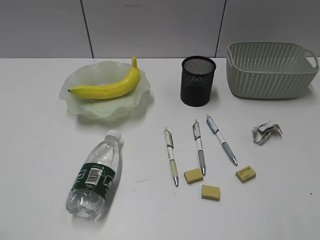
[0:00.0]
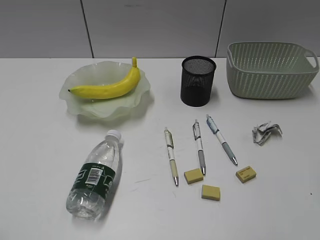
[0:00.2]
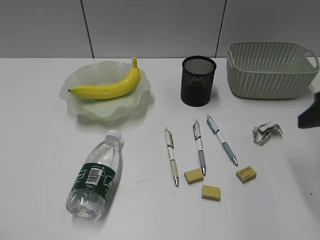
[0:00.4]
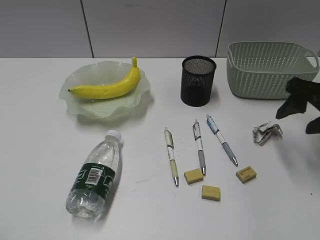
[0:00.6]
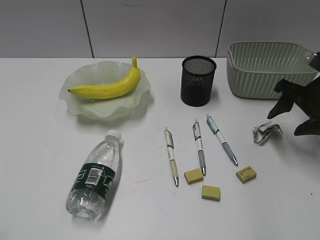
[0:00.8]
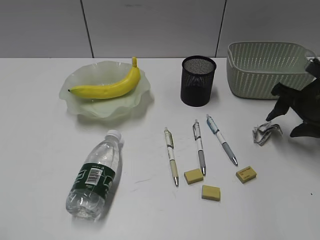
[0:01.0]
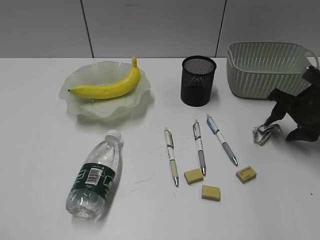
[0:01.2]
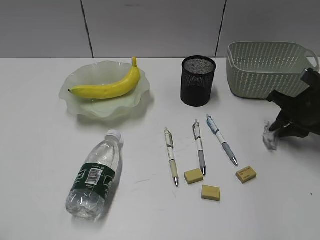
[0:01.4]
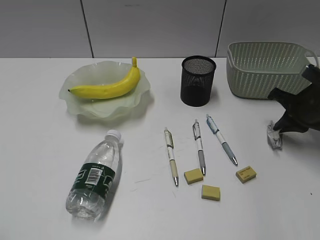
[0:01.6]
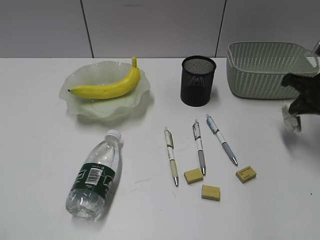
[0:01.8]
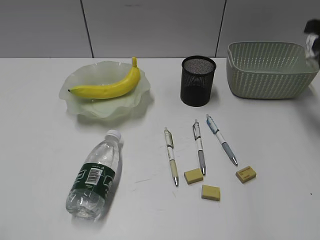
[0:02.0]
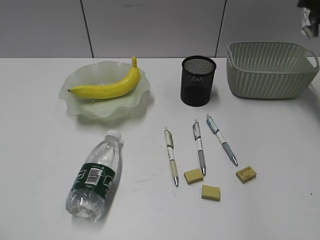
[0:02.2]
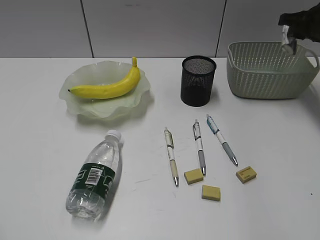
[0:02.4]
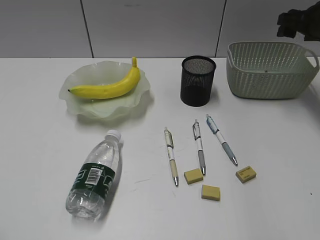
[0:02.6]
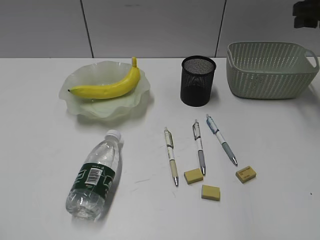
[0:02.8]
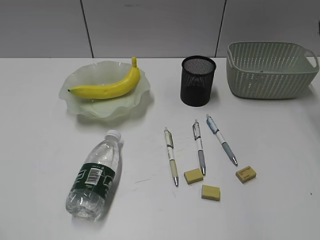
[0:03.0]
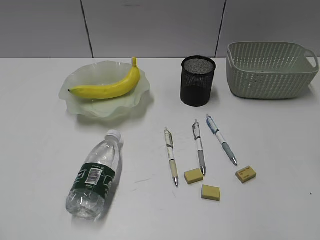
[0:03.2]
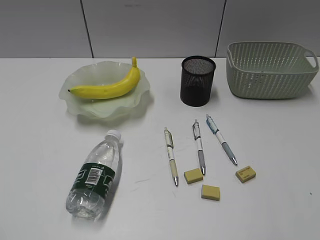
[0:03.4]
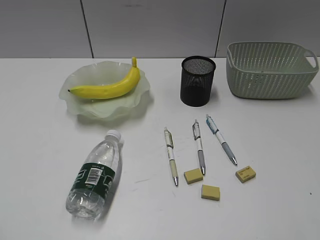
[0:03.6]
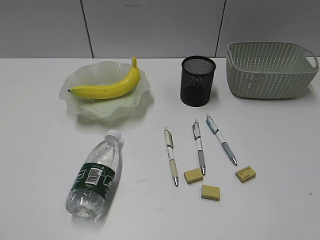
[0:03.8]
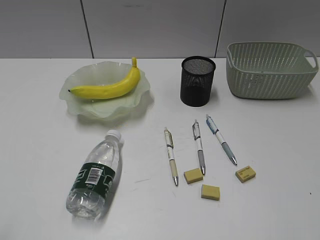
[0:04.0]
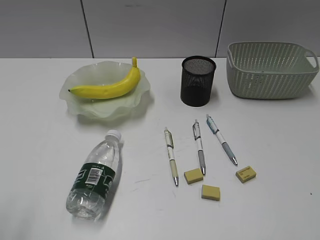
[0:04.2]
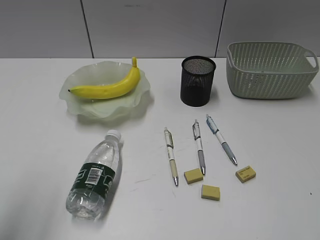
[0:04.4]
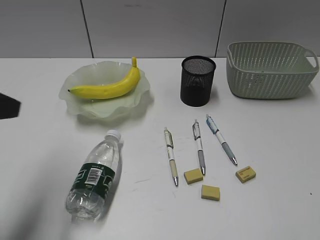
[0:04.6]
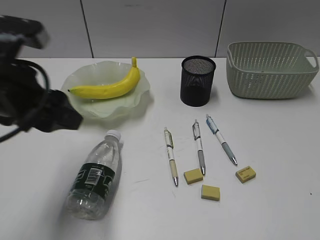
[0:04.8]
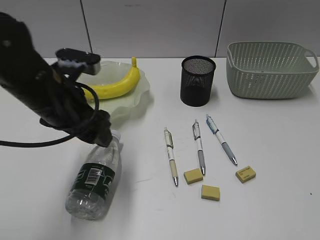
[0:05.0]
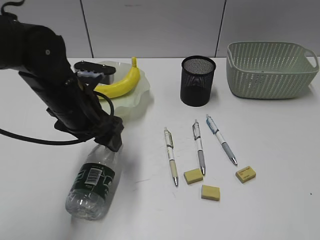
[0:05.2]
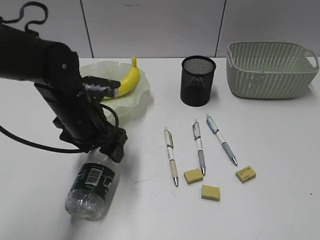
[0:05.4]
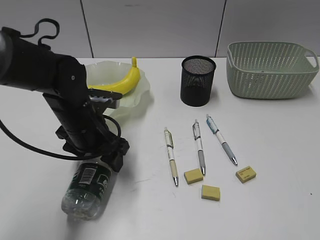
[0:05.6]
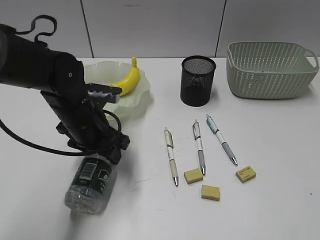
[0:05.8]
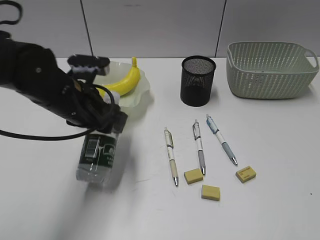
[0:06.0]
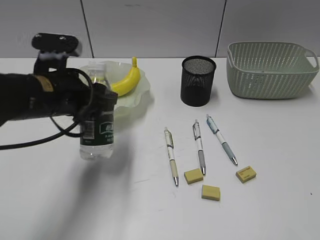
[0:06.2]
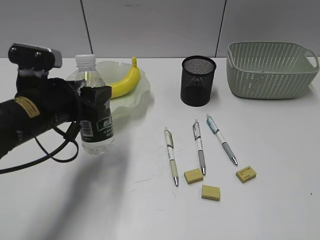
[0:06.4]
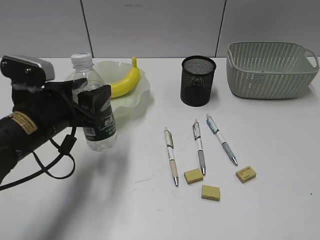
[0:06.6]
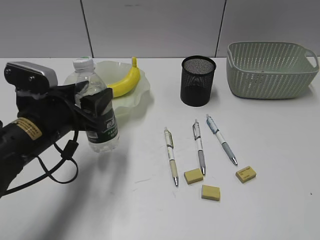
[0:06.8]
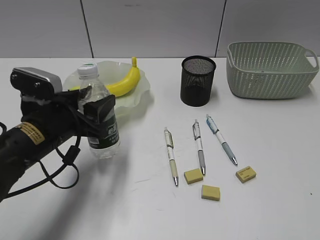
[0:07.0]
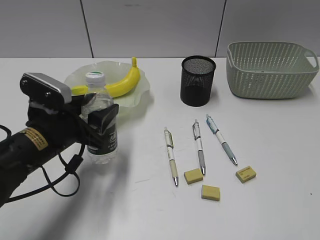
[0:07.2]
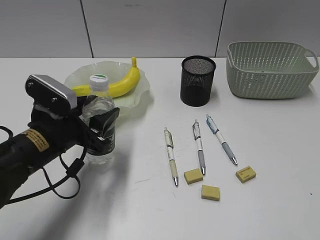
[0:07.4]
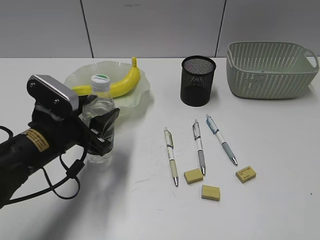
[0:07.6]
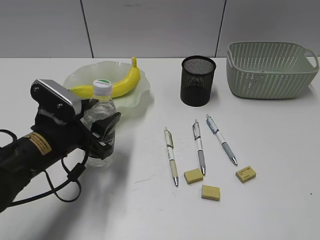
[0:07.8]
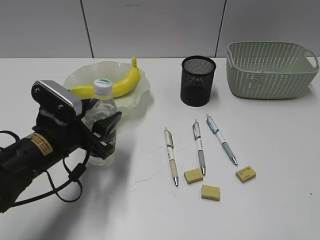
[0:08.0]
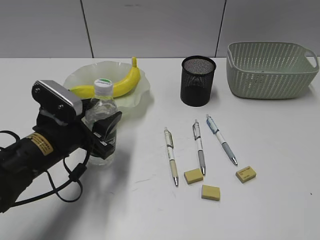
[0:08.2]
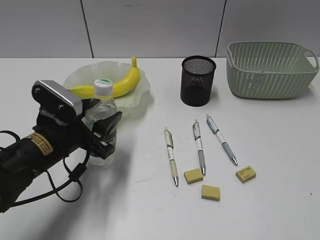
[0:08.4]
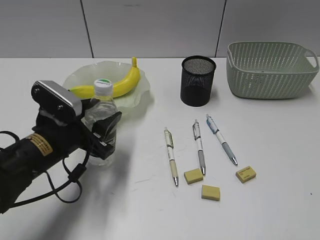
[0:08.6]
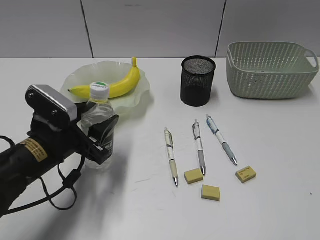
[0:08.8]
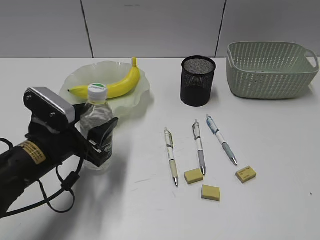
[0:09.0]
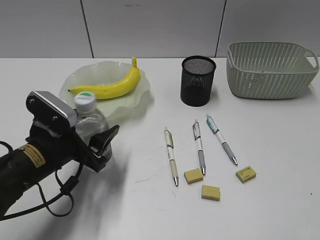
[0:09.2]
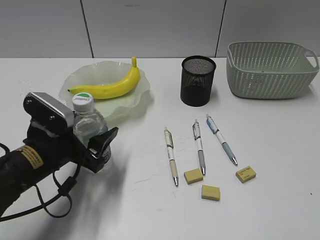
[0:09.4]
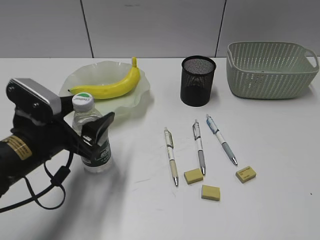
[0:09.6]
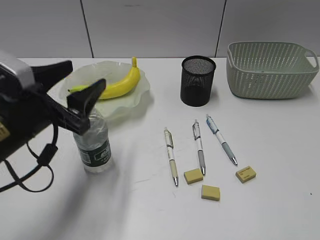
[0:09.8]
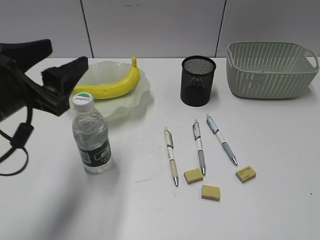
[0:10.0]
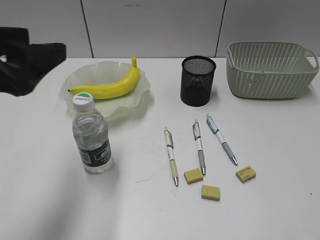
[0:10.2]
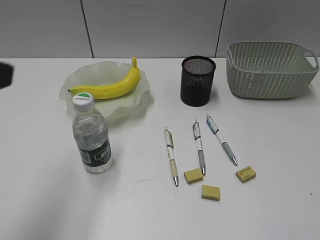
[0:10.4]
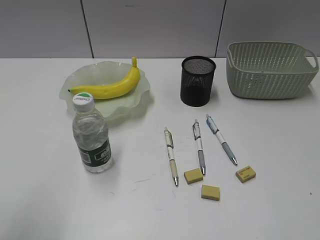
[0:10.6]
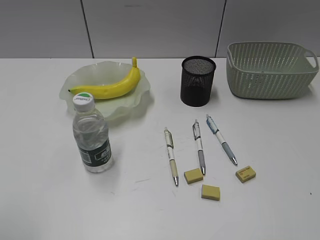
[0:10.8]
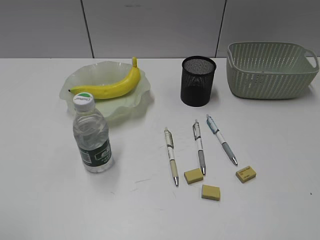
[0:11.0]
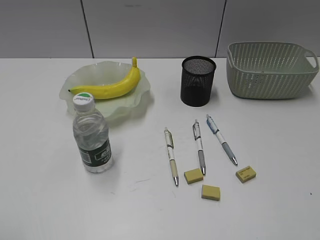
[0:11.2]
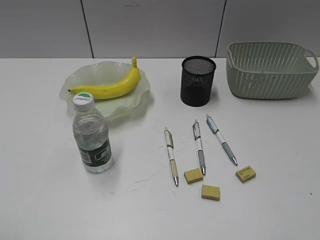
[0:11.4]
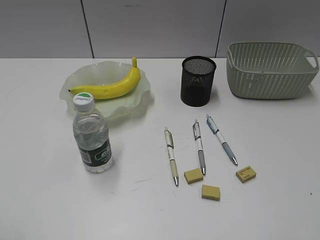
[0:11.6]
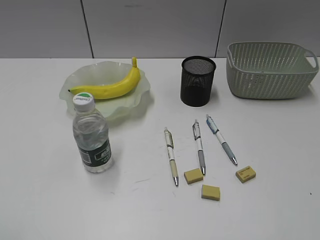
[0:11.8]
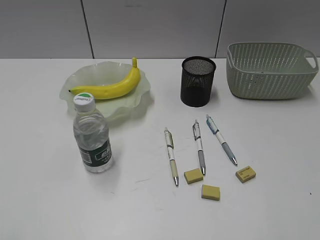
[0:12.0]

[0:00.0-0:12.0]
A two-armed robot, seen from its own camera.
Step, 1.6 to 2.6 s: Place the waste paper in the basket with right gripper.
Step, 2.8 to 5.6 s: Grasp the bottle with left gripper.
Step, 5.8 to 9.6 s: Stand the bottle with left gripper.
0.0 to 1.6 s: The right gripper is displaced forward and downward by about 35 cm, and opens, then closes again.
1.6 to 3.0 s: The right gripper moves up and down over approximately 15 cm, changing direction 2 times, and opens.
3.0 to 4.4 s: The left gripper goes some 10 cm forward.
4.4 to 6.0 s: The left gripper travels forward, to the right and downward by roughly 30 cm.
6.0 to 7.6 s: The left gripper goes roughly 5 cm backward.
7.6 to 9.0 s: The grippers move only a little.
9.0 to 10.4 s: The left gripper shifts about 25 cm upward and backward.
10.4 to 12.0 s: The left gripper goes about 20 cm backward and to the left.

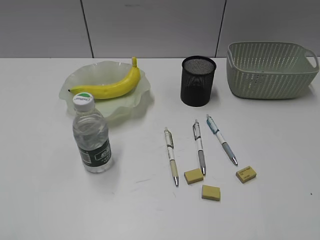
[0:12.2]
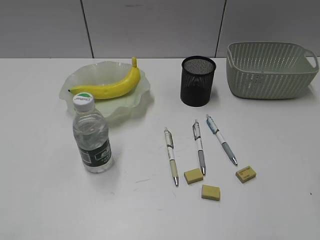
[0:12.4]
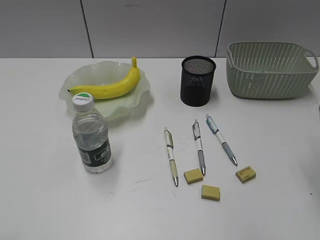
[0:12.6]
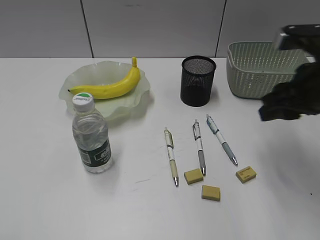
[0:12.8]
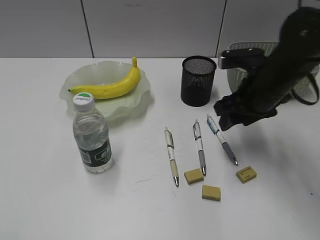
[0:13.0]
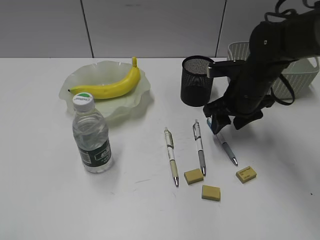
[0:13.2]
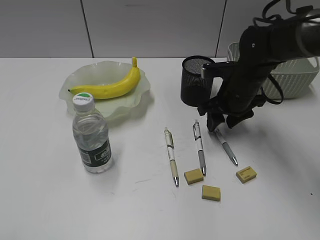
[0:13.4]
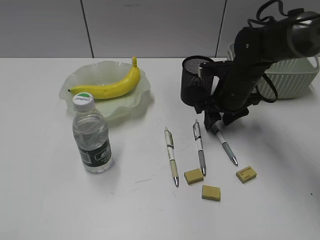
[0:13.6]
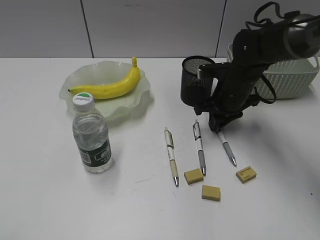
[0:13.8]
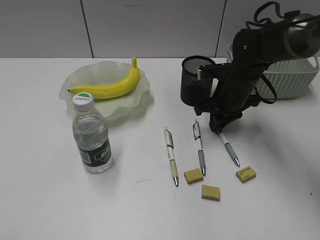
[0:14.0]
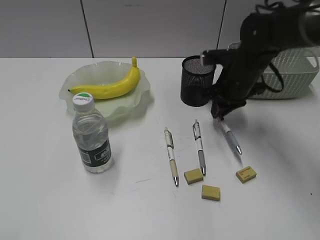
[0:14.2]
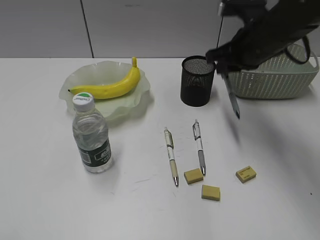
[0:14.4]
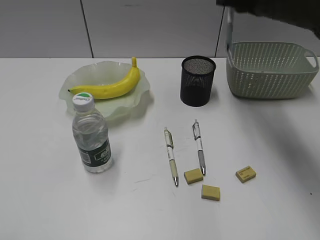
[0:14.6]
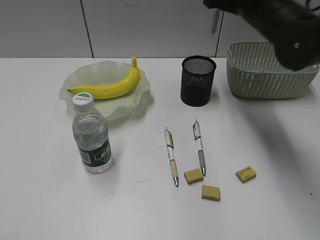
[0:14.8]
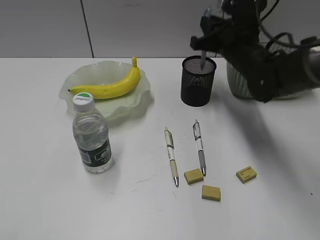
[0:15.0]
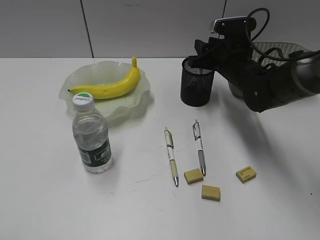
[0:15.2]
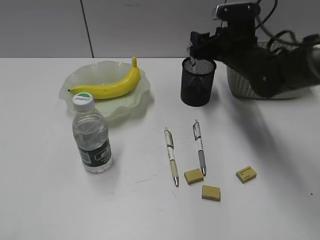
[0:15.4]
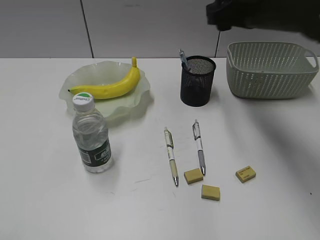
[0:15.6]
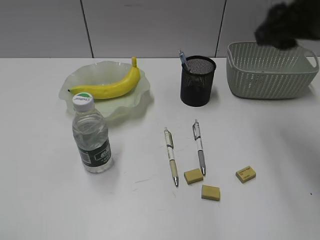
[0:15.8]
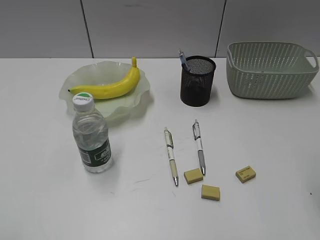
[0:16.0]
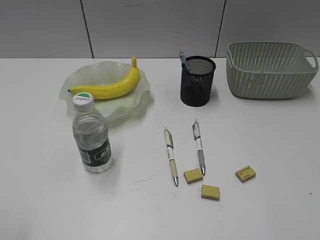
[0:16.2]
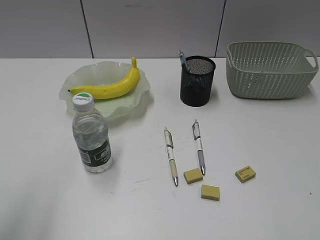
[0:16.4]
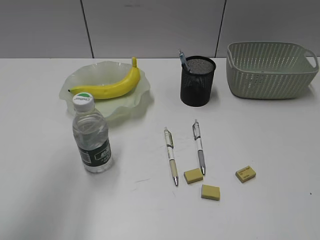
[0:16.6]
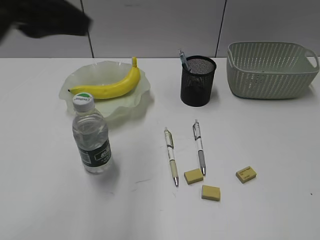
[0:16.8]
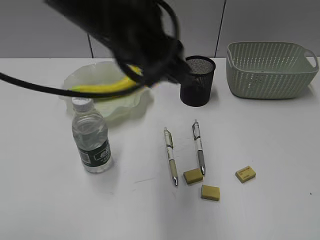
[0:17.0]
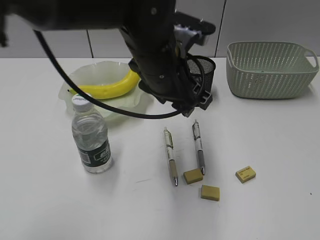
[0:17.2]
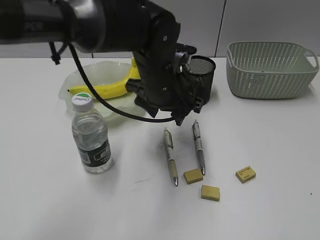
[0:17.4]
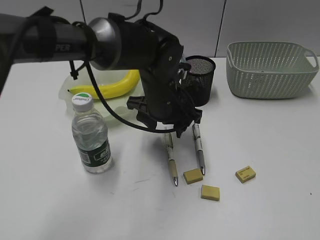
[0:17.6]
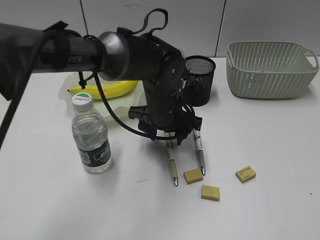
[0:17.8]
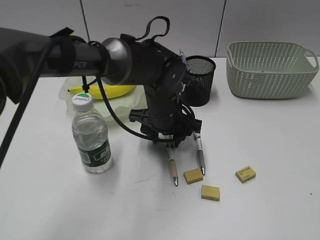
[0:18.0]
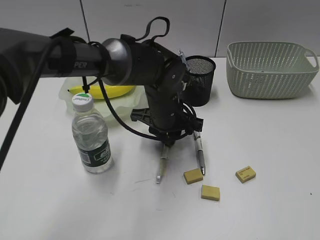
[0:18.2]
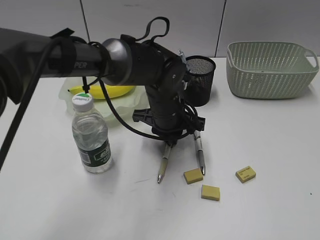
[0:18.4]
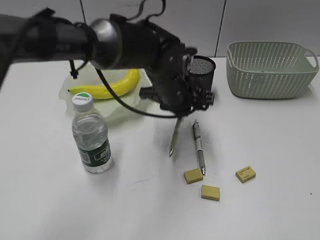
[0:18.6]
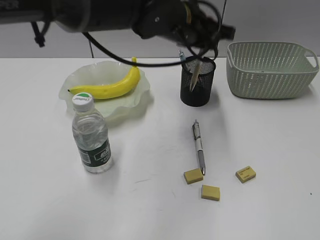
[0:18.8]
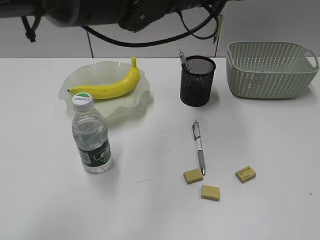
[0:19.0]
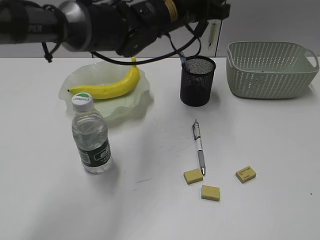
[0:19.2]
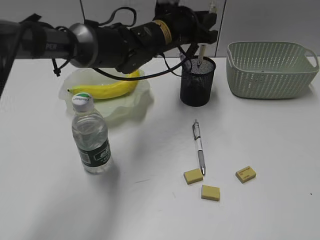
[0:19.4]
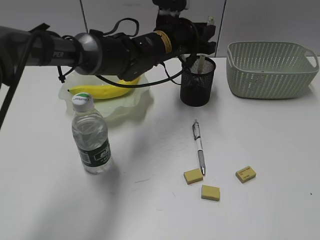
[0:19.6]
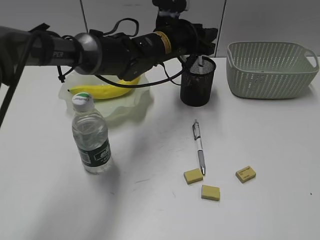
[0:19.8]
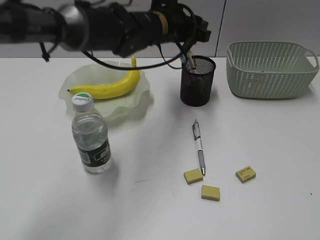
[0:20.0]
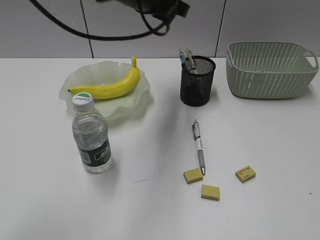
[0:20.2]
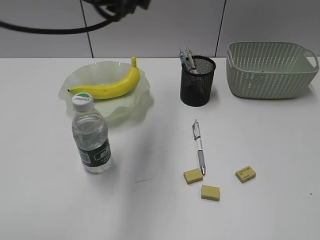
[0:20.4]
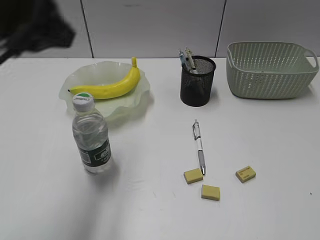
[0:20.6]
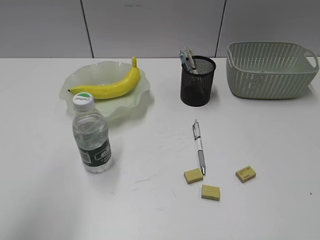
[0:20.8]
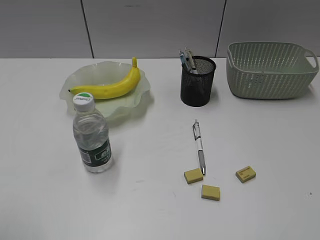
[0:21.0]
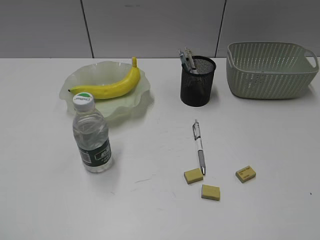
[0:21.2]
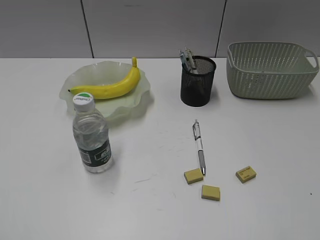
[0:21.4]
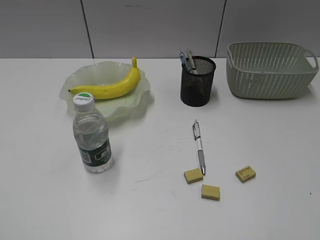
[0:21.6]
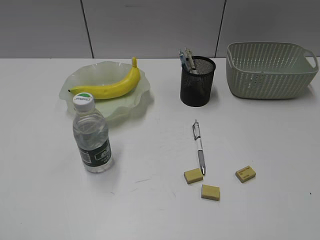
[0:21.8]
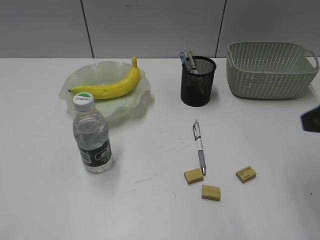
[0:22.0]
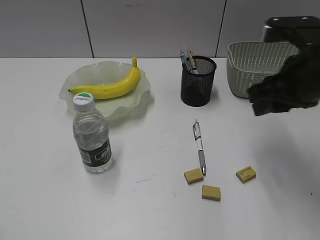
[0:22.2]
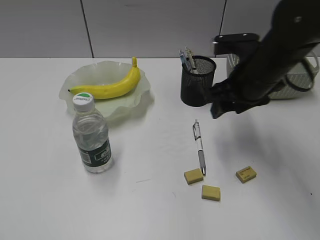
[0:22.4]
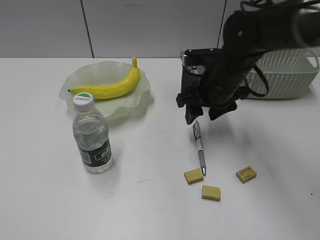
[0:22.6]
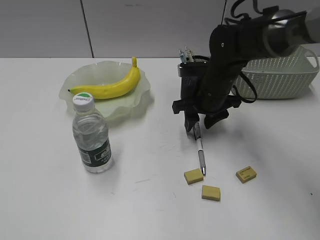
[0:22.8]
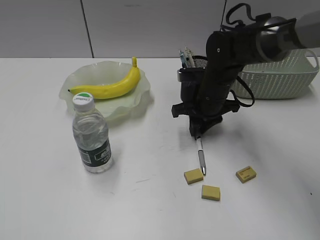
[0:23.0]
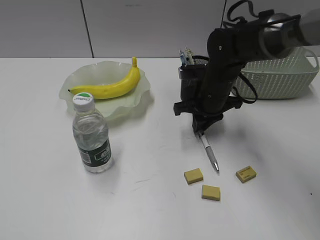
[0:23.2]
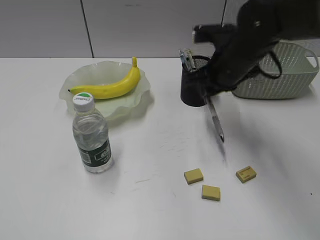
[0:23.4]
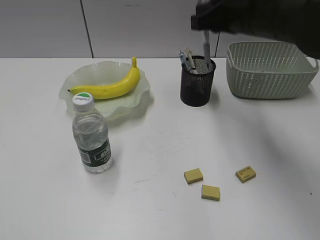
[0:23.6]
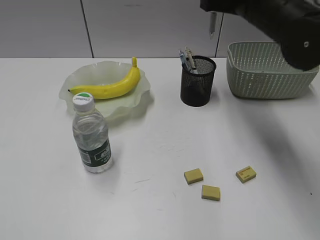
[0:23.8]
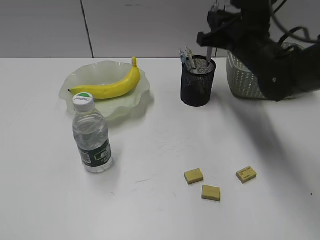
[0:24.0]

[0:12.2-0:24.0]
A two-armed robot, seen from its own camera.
Step, 14.0 to 15.4 s: Place the blue pen in pen holder with right gripper.
Step, 15.6 to 18.4 s: Grasp the yellow pen with left gripper.
Step, 18.6 to 19.8 s: Place the yellow pen in pen holder with left gripper.
Step, 20.0 to 23.0 s: Grasp the gray pen with right gripper.
12.2 to 13.6 s: The right gripper shifts about 40 cm forward, downward and to the left.
13.6 to 15.2 s: The right gripper moves roughly 15 cm upward and comes back, and closes, then opens again.
15.2 to 16.6 s: The right gripper shifts about 40 cm backward, and opens, then closes again. The left gripper goes about 20 cm forward, upward and to the right.
16.6 to 18.2 s: The left gripper travels to the right, downward and forward by some 40 cm, and opens and closes again.
18.2 to 19.6 s: The left gripper goes approximately 10 cm forward and upward.
19.6 to 21.0 s: The left gripper goes about 50 cm backward and to the left, and opens.
21.0 to 22.6 s: The right gripper is displaced forward and to the left by some 40 cm, and opens up; the left gripper shifts approximately 5 cm backward.
22.6 to 24.0 s: The right gripper swings up and down, roughly 15 cm each way, with 2 reversals, and closes.
